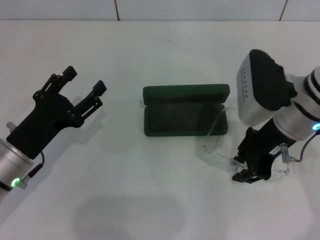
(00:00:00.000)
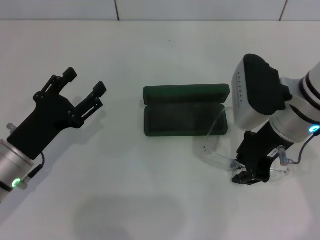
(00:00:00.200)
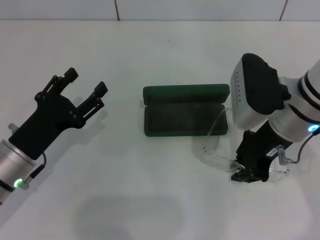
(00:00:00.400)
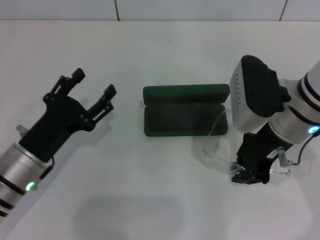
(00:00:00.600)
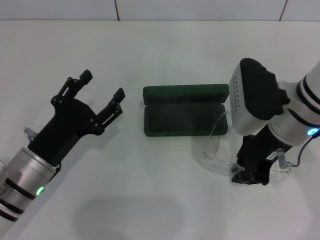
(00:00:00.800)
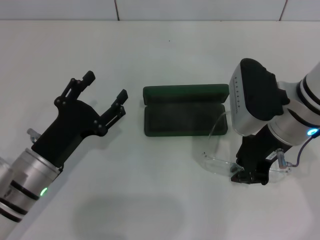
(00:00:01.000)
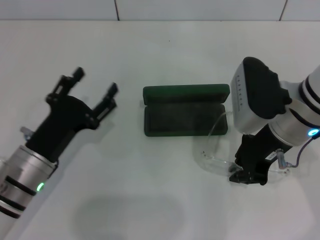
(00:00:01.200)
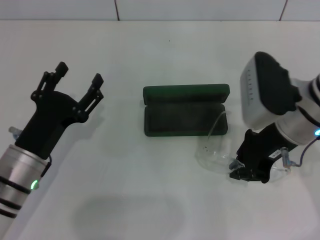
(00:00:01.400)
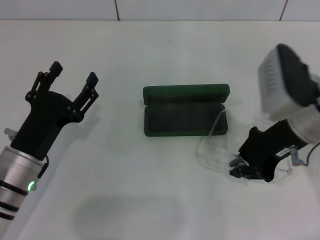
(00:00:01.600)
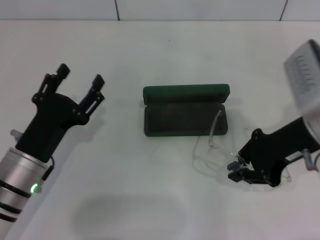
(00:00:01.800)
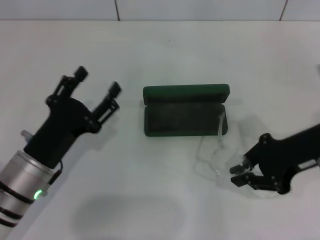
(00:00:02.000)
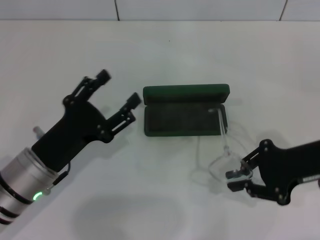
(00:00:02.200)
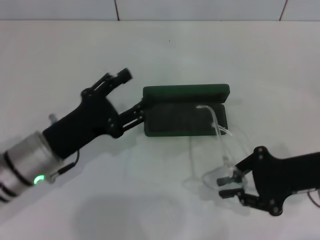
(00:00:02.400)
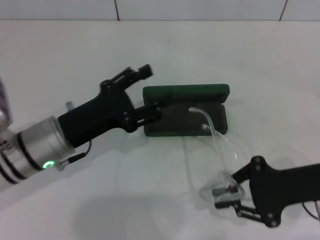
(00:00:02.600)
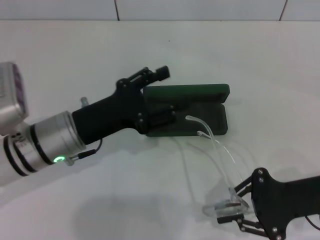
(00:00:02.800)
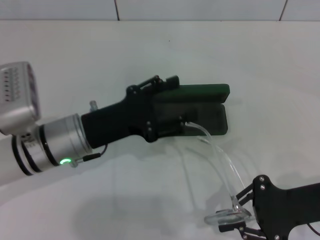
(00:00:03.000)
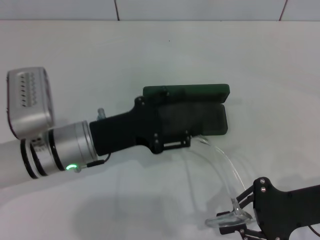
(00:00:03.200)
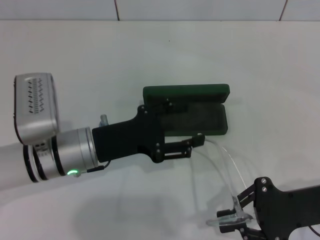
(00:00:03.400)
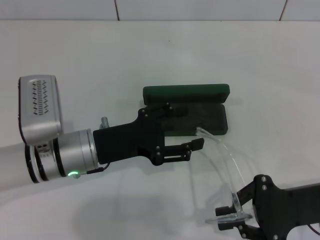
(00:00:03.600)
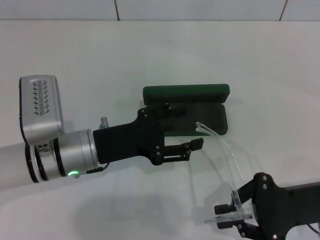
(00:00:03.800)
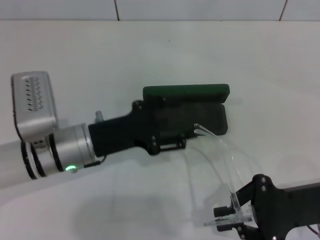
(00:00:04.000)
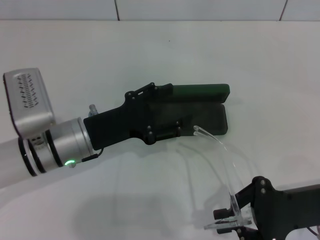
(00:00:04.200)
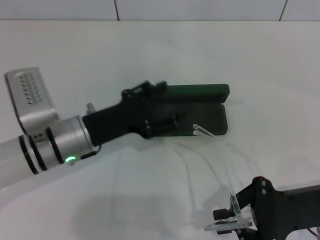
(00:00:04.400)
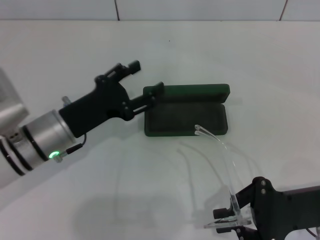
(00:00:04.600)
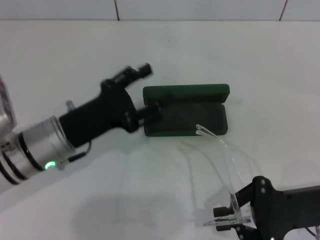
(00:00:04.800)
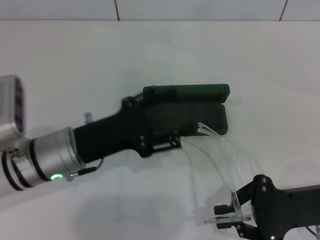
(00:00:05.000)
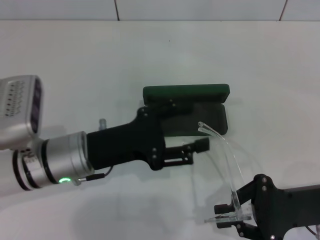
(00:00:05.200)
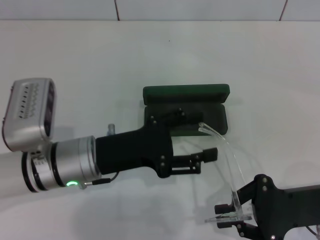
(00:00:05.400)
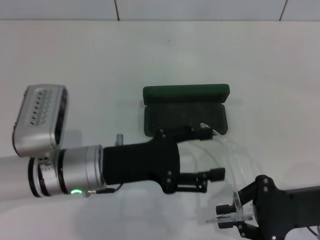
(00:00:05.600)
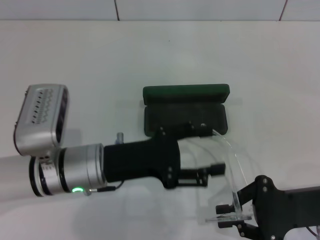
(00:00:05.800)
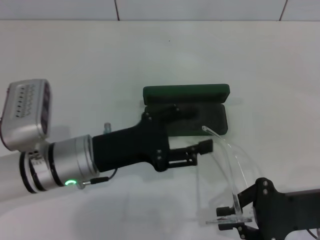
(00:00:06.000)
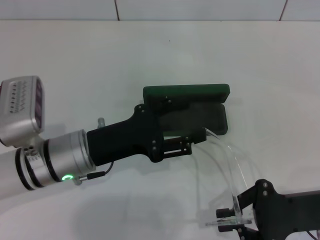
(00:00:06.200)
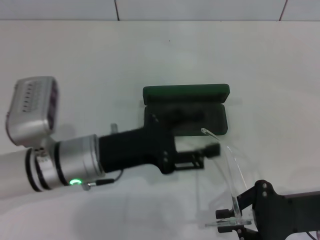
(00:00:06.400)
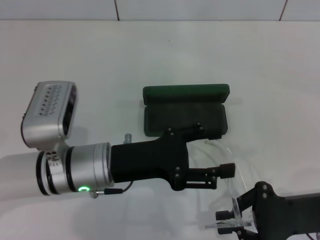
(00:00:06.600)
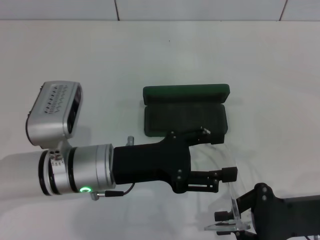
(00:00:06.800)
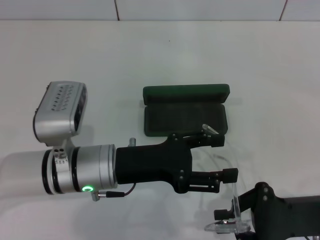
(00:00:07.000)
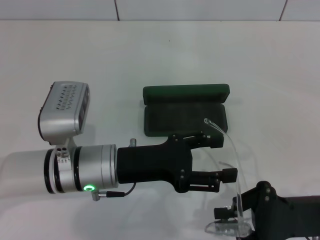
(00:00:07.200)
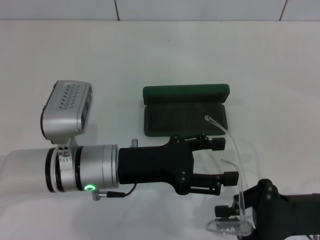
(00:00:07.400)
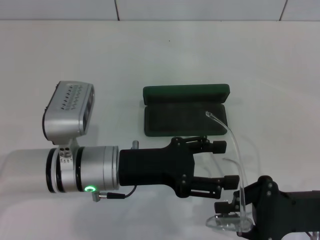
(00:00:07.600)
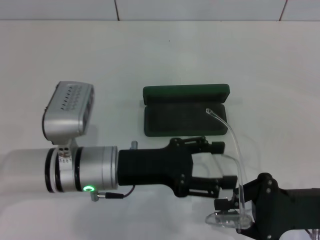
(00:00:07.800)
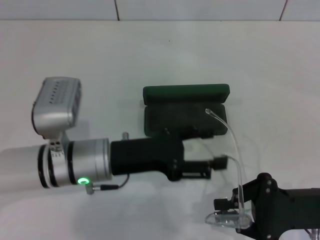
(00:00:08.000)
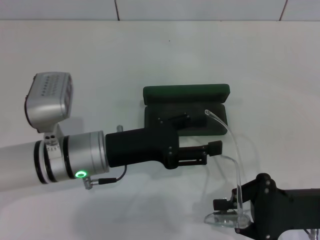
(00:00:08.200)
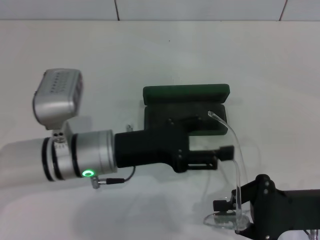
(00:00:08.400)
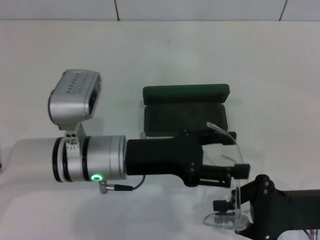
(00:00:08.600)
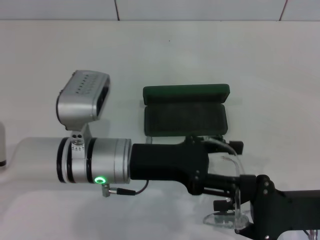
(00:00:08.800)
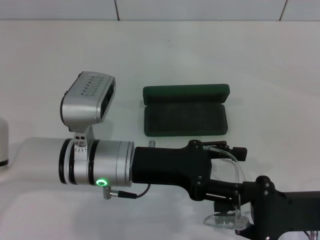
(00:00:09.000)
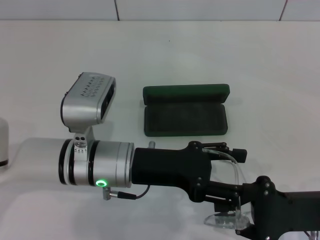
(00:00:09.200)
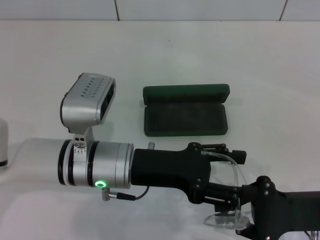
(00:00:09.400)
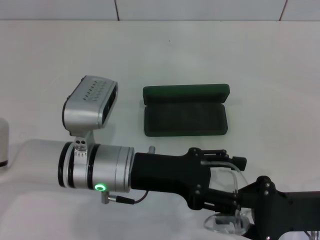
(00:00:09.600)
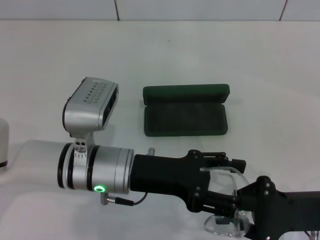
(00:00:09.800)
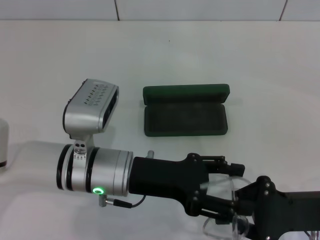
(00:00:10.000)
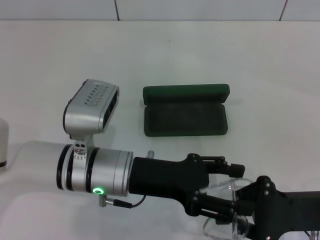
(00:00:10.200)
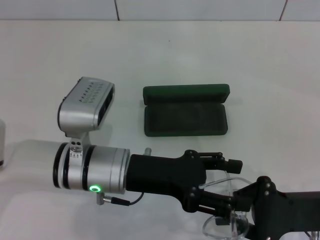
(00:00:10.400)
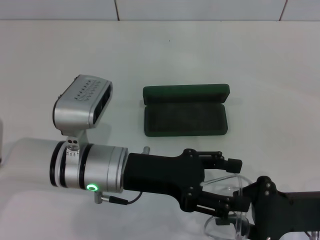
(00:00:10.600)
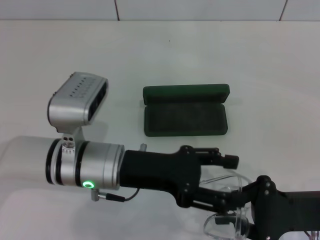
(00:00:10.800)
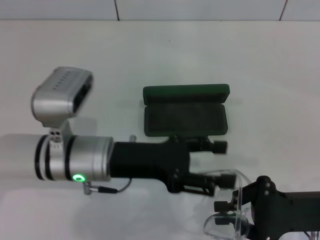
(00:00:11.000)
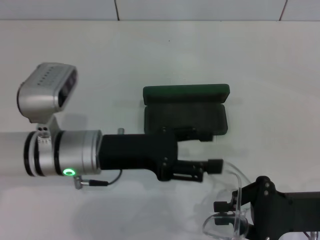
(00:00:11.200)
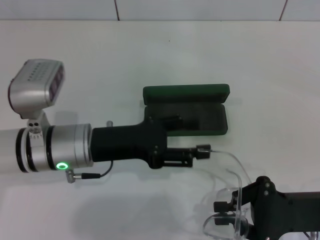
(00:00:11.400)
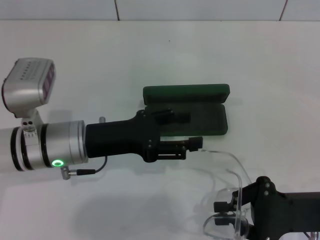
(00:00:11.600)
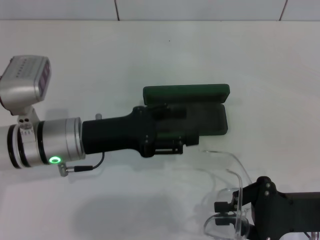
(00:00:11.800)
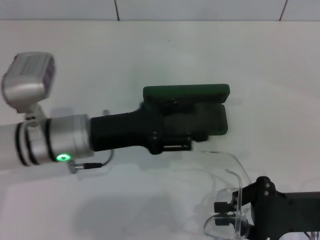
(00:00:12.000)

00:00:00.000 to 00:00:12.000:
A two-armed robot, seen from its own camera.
00:00:00.000 to 00:00:01.600: The grippers make only small movements.
00:00:01.600 to 00:00:03.000: The right gripper heads backward, downward and to the right, covering about 10 cm. The left gripper moves to the right and forward, some 10 cm.
00:00:03.000 to 00:00:04.400: There are only small adjustments of the grippers.
00:00:07.600 to 00:00:09.000: The grippers move only a little.
00:00:09.000 to 00:00:10.400: The two grippers keep their place.
00:00:10.400 to 00:00:12.000: The left gripper changes place by about 5 cm.

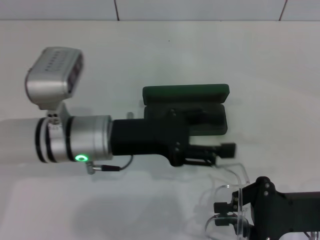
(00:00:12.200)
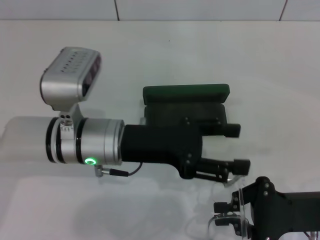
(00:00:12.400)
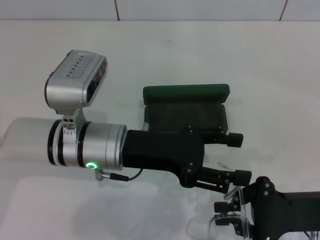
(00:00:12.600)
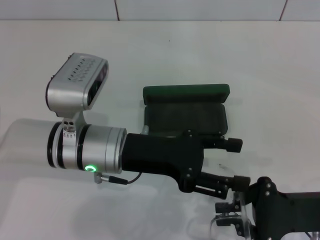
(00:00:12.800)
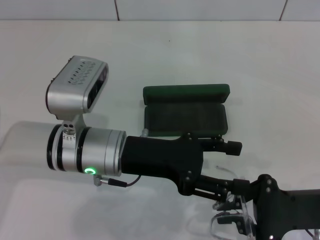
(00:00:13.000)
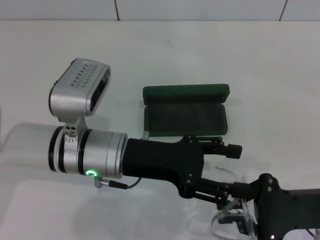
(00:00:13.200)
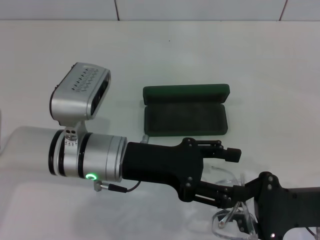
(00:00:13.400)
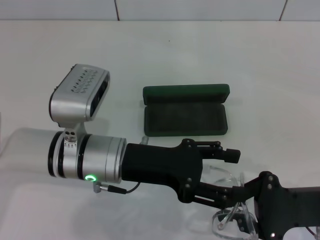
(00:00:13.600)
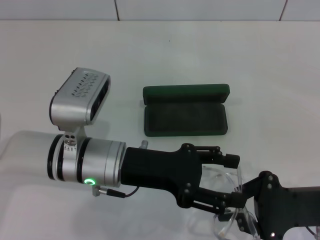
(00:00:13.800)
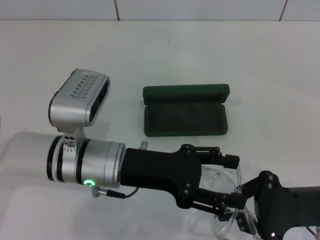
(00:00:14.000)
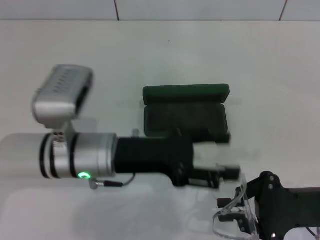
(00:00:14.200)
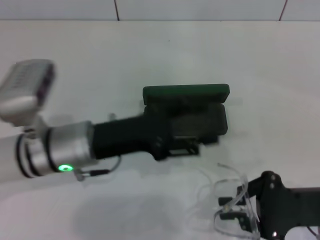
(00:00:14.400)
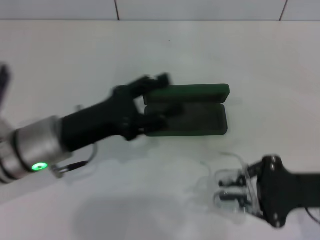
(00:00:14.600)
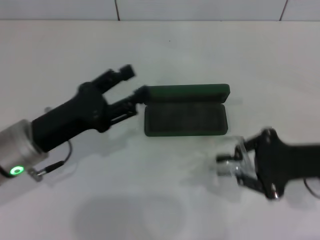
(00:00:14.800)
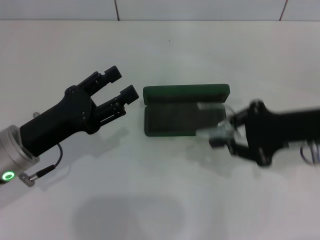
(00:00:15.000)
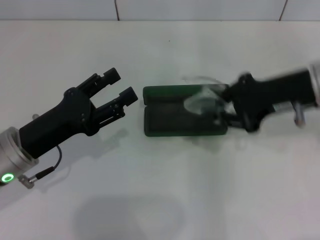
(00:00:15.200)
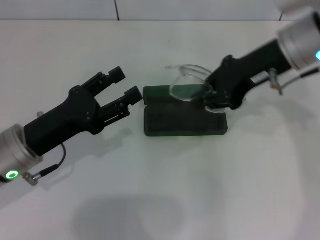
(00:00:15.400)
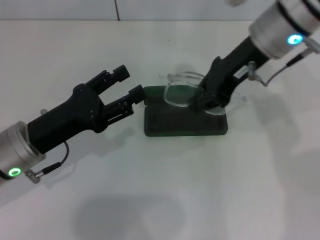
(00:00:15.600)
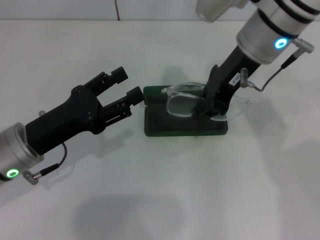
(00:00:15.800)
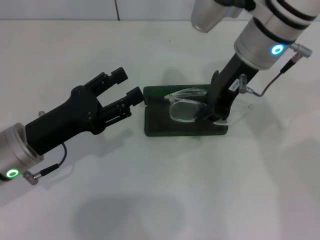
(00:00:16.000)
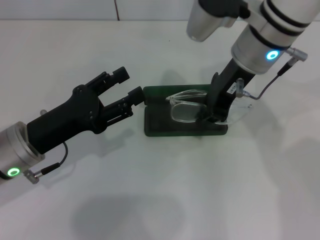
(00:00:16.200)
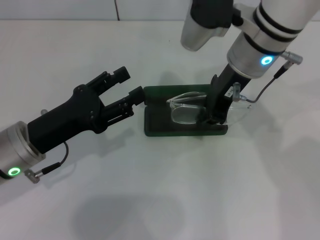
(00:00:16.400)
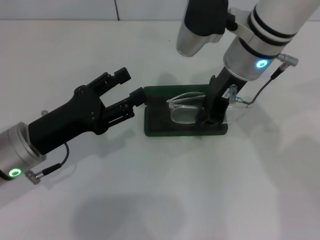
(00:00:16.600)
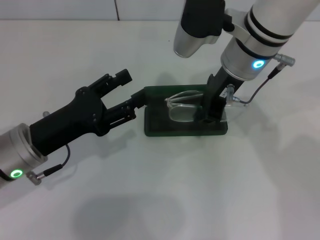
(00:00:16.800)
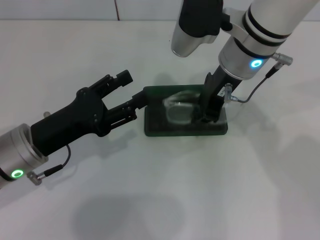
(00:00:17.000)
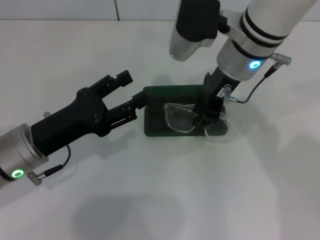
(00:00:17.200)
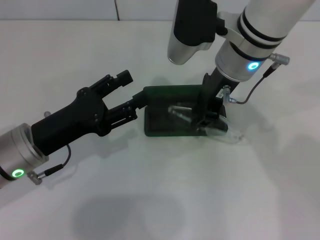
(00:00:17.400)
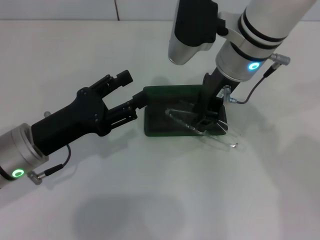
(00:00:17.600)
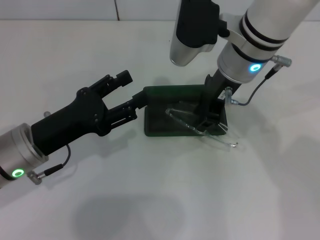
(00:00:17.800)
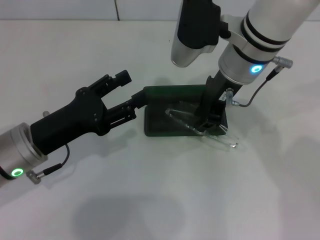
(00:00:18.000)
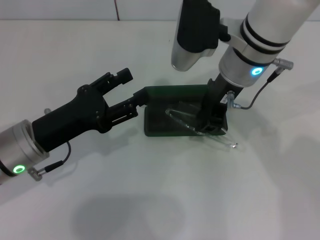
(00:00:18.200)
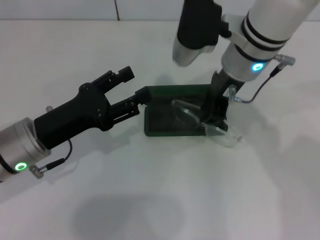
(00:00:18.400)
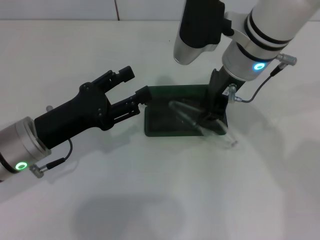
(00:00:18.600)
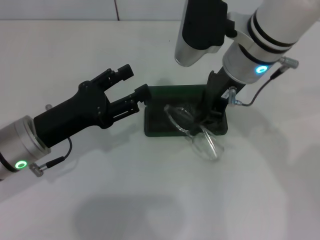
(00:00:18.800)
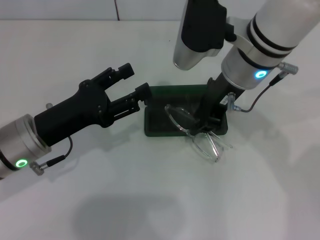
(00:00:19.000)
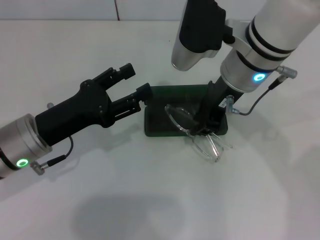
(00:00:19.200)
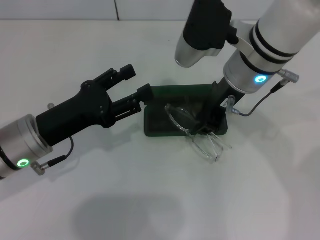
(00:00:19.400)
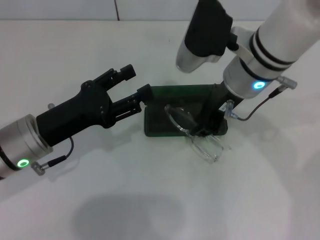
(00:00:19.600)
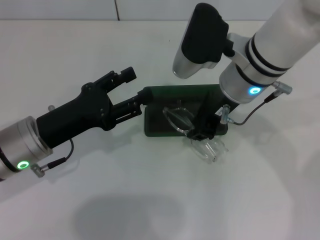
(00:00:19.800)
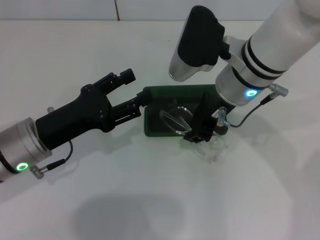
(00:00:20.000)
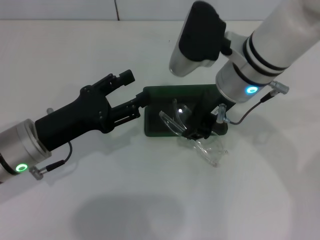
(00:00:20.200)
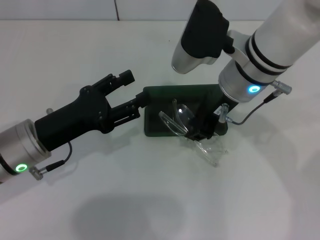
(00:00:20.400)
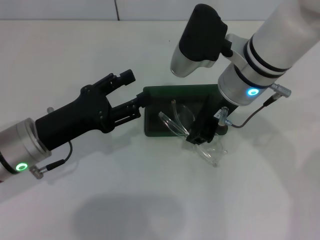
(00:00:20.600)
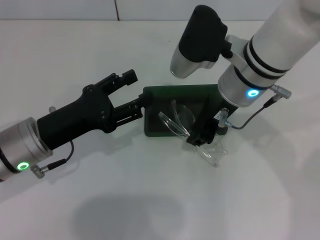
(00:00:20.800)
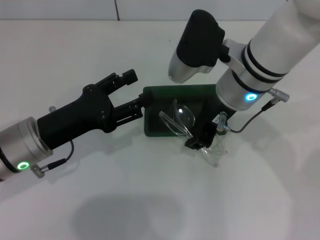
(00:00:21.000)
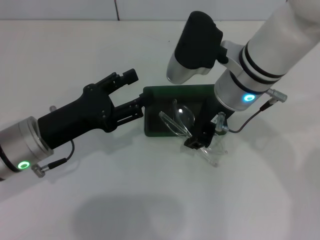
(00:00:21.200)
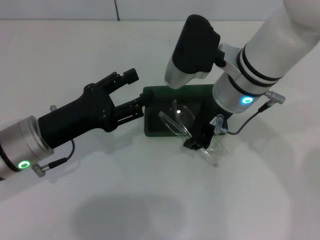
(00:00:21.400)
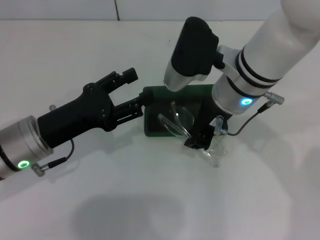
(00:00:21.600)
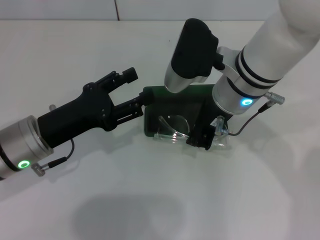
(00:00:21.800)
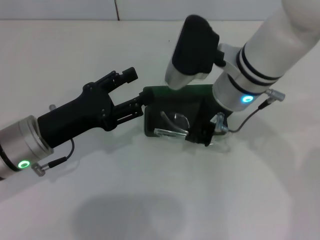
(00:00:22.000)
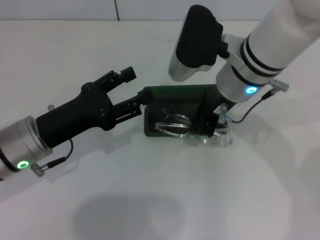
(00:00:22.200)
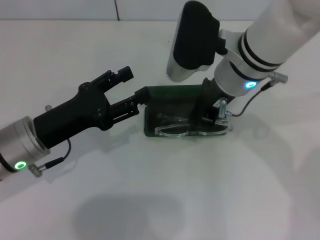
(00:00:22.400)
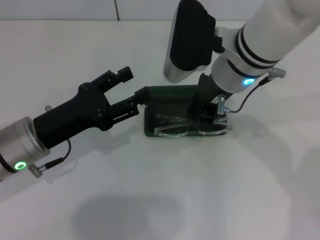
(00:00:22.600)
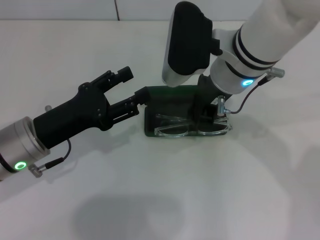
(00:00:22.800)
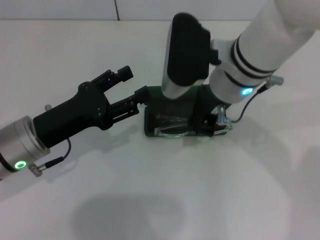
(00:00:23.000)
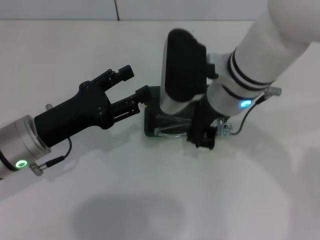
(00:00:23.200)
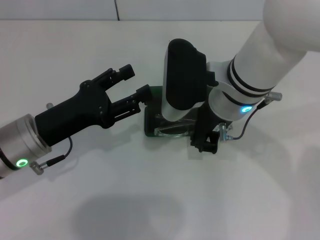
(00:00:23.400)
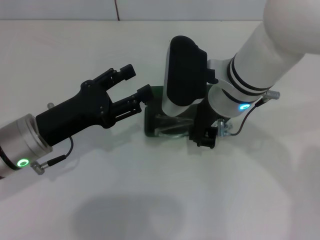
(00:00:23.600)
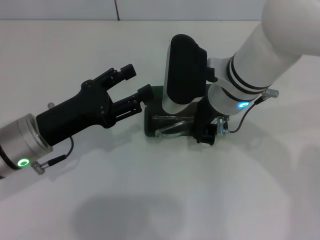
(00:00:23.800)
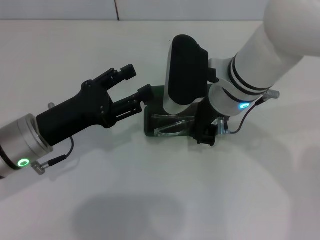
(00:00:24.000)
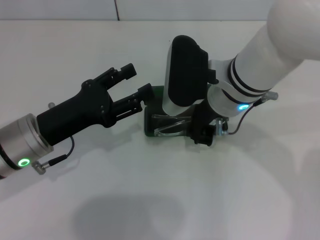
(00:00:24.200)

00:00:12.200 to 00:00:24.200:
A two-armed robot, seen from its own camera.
Step, 00:00:12.200 to 00:00:14.200: Fold the frame with your left hand.
00:00:13.800 to 00:00:15.200: The left gripper travels to the left by roughly 10 cm. The right gripper shifts approximately 15 cm upward and forward.
00:00:15.200 to 00:00:16.600: The right gripper is displaced to the left and forward by about 15 cm.
00:00:16.600 to 00:00:19.800: There are only small adjustments of the grippers.
00:00:19.800 to 00:00:21.200: The two grippers keep their place.
00:00:21.200 to 00:00:24.200: There are only small adjustments of the grippers.
